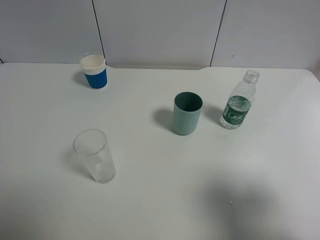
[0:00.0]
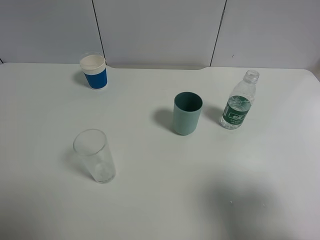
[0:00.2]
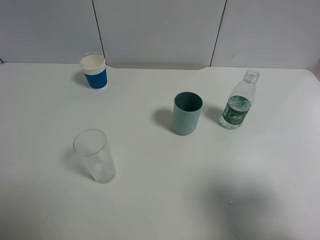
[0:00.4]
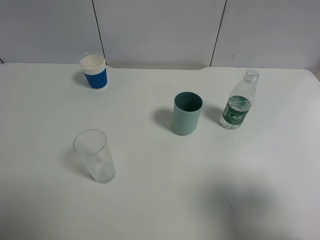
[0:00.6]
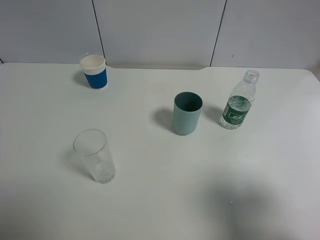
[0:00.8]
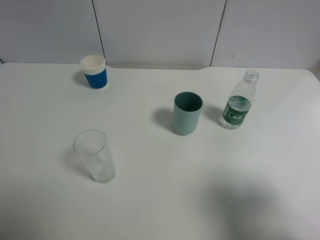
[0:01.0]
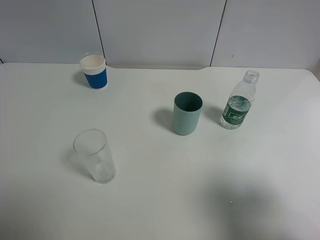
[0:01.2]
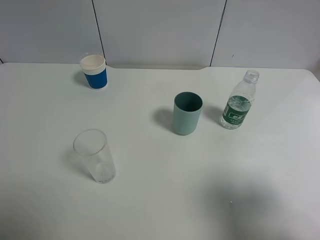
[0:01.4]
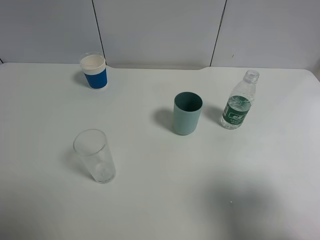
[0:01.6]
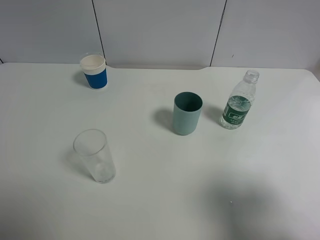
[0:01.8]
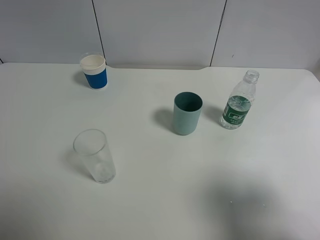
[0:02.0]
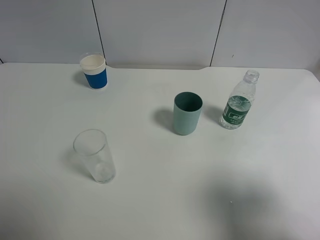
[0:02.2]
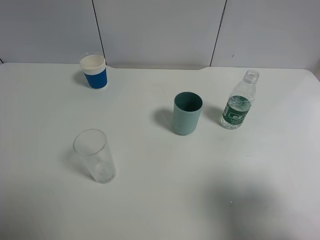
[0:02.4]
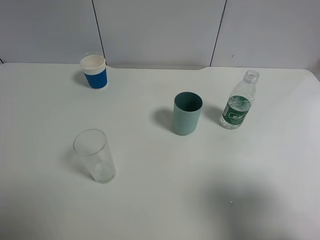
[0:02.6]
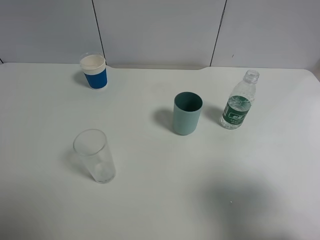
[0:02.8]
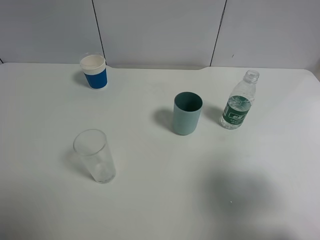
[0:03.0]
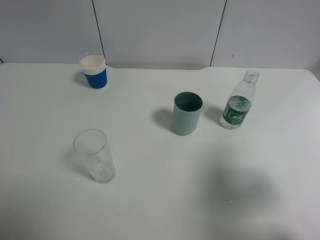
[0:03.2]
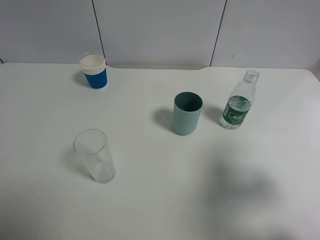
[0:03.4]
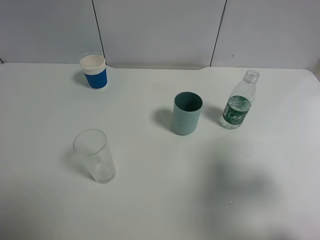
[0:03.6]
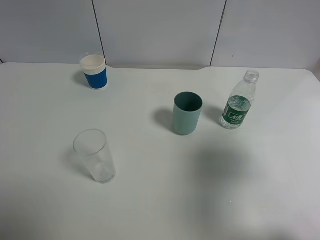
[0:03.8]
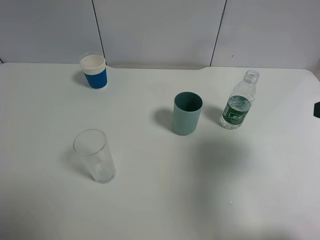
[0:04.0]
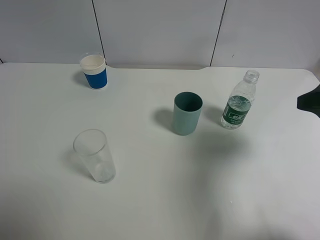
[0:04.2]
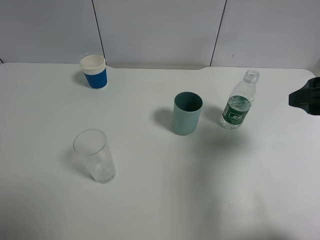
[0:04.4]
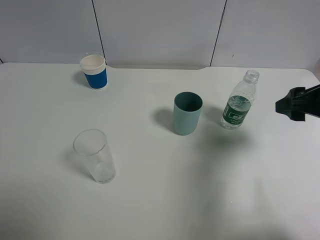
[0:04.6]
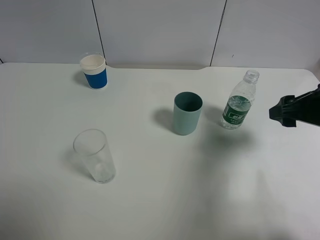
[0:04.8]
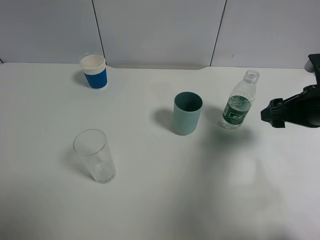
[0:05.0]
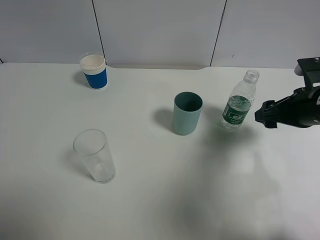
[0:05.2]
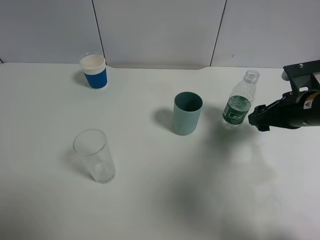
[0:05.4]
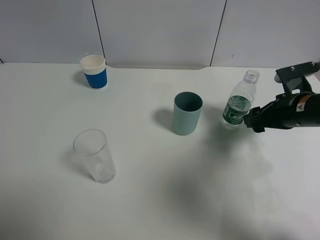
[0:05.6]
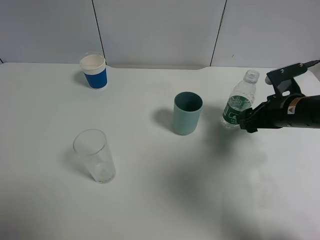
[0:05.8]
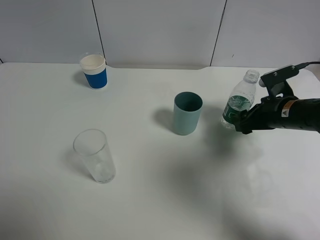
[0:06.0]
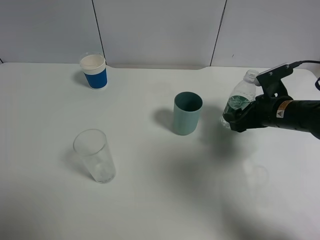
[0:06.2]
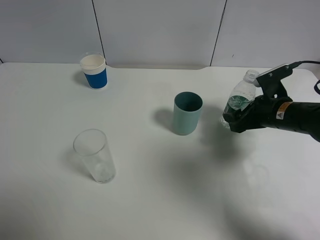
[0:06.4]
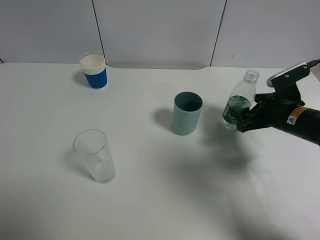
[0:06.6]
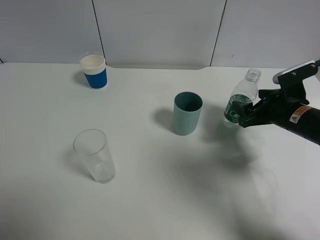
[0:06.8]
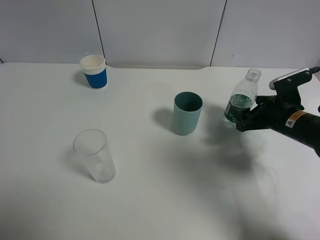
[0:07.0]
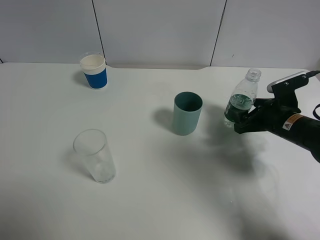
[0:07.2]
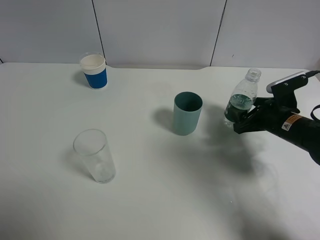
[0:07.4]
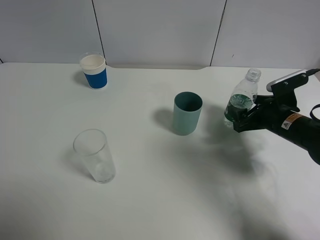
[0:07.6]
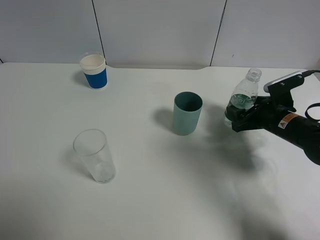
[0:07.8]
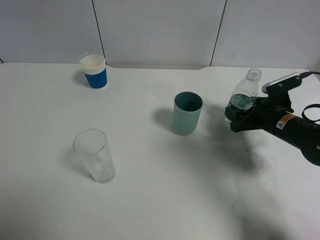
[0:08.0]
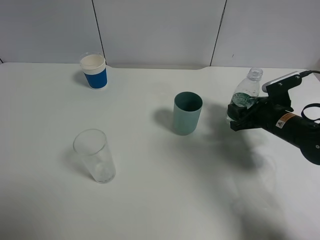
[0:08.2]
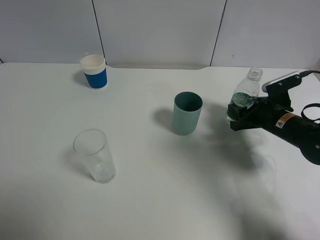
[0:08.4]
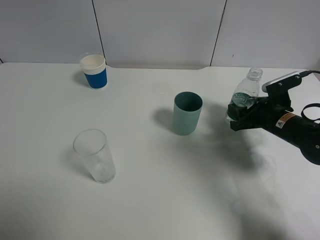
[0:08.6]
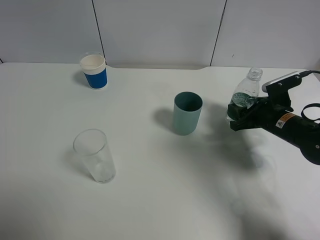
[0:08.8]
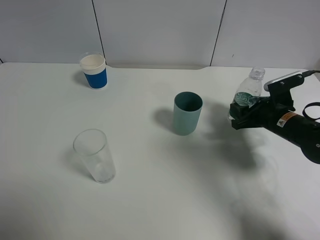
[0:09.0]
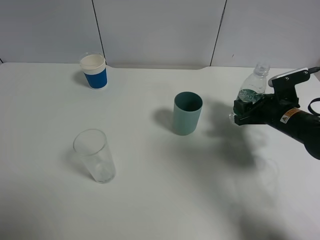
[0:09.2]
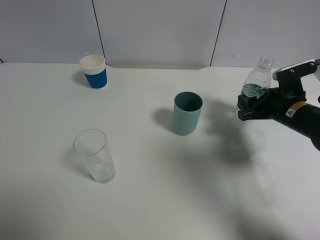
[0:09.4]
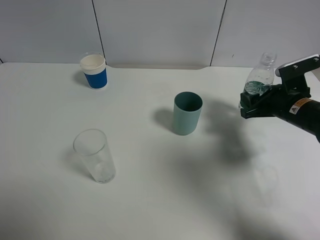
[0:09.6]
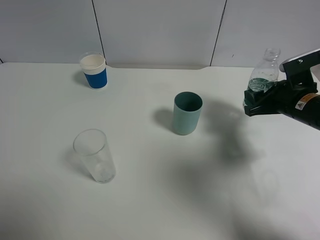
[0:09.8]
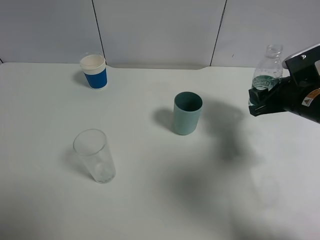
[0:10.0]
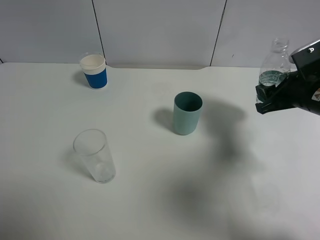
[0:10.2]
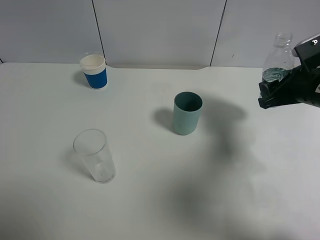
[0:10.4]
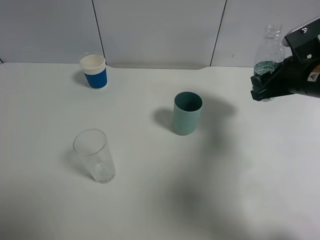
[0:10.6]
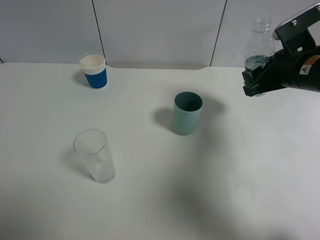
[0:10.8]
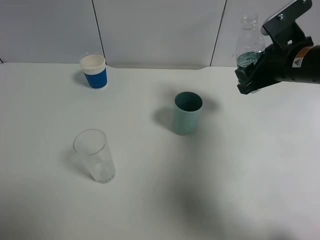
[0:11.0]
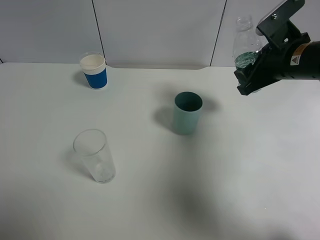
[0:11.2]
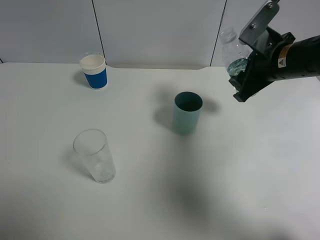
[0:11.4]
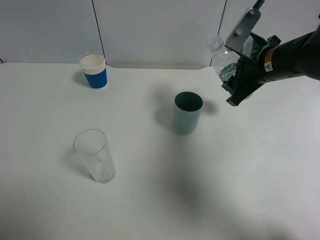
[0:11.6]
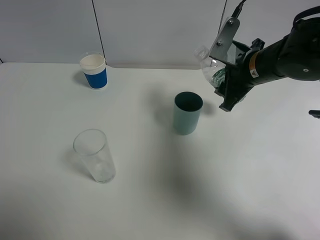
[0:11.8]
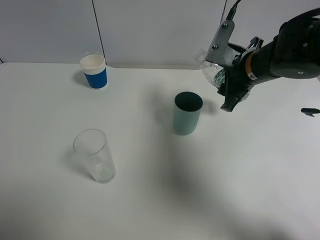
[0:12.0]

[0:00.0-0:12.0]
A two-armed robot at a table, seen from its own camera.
Task of the whole recording: use a gripper to hold the bottle of the drink and pour it into a random cup.
Step, 0:00.0 to 0:08.2: Grasp the mineral water bottle with the right gripper.
0:00.0 to 0:01.6: Both grippers stay put.
0:03.0 to 0:04.4: The right gripper shifts some 15 cm forward.
0:04.4 to 0:06.0: The right gripper travels downward and forward by about 15 cm.
0:07.6 to 0:09.0: The right gripper closes its fingers.
0:09.0 to 0:10.4: The right gripper heads upward, covering some 10 cm.
0:10.4 to 0:12.0: The right gripper travels to the left by some 10 cm.

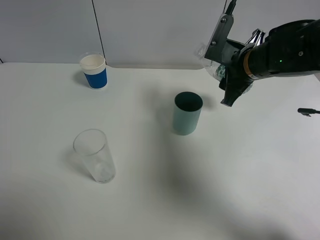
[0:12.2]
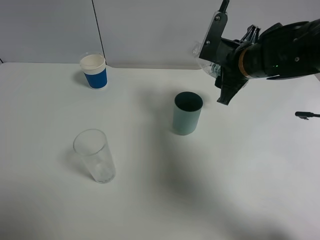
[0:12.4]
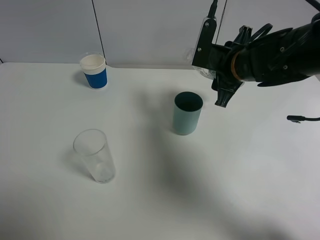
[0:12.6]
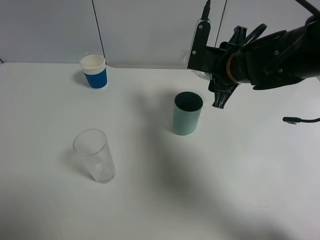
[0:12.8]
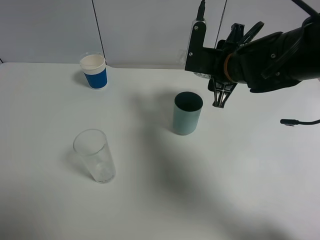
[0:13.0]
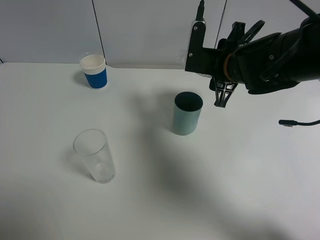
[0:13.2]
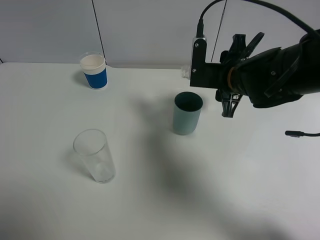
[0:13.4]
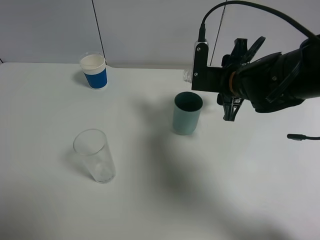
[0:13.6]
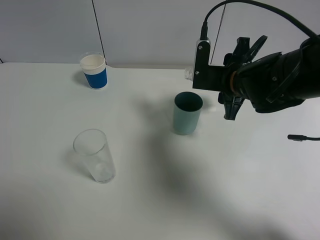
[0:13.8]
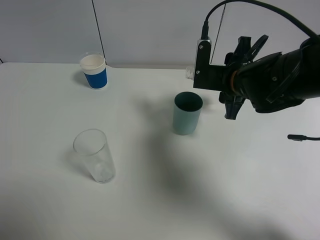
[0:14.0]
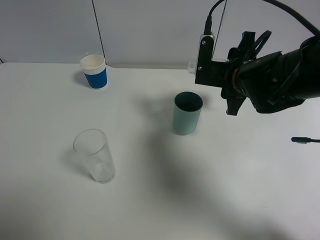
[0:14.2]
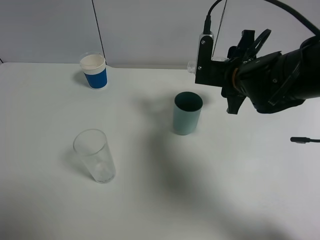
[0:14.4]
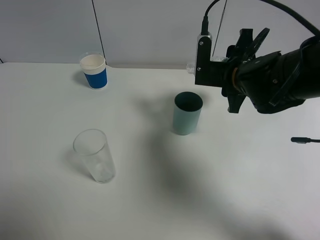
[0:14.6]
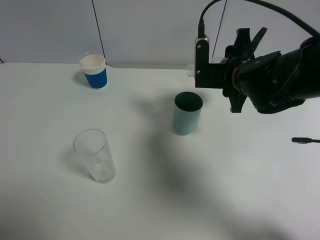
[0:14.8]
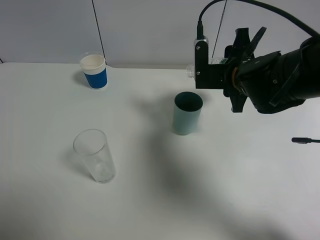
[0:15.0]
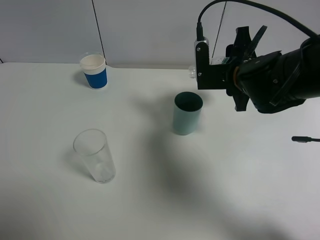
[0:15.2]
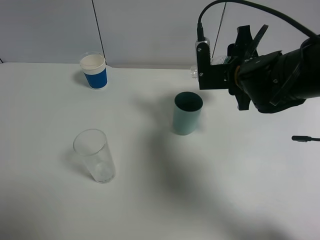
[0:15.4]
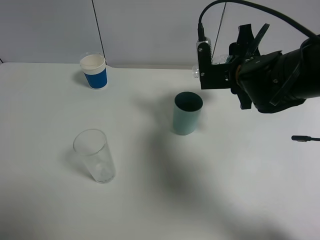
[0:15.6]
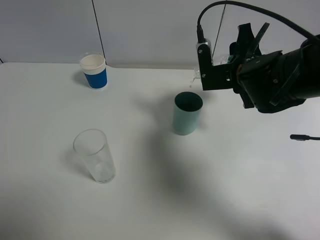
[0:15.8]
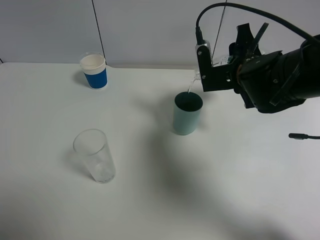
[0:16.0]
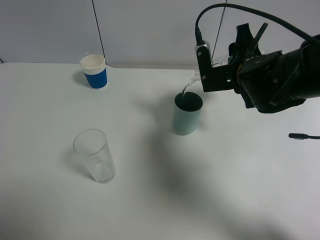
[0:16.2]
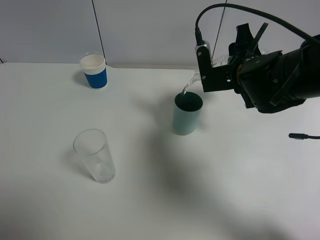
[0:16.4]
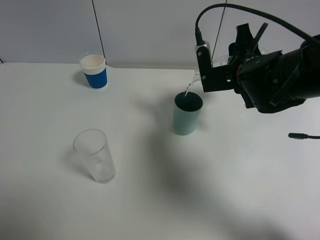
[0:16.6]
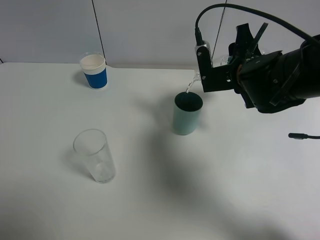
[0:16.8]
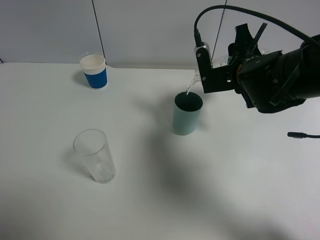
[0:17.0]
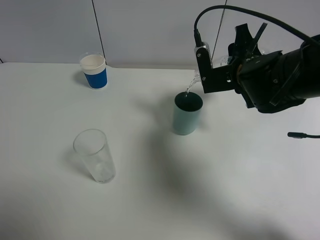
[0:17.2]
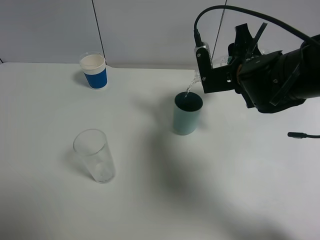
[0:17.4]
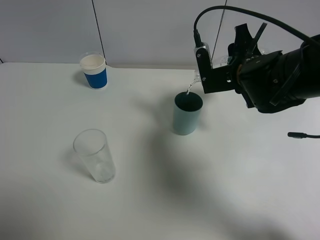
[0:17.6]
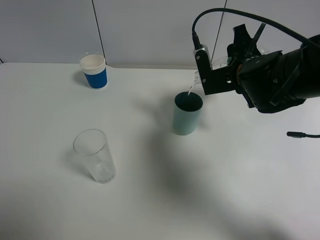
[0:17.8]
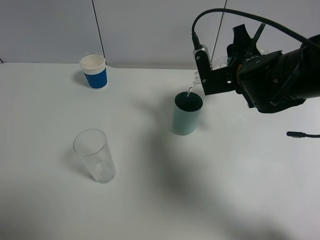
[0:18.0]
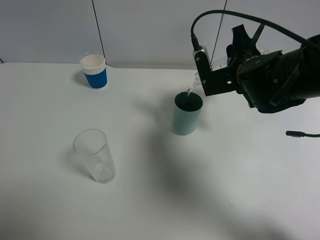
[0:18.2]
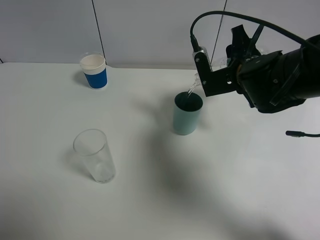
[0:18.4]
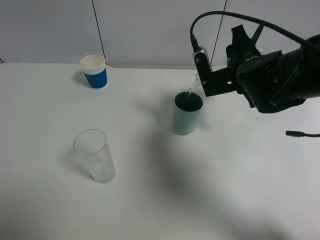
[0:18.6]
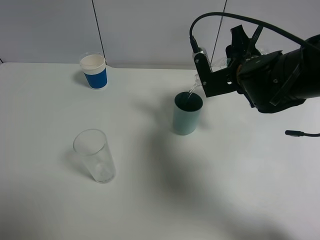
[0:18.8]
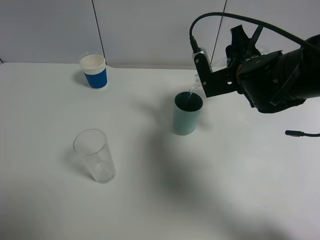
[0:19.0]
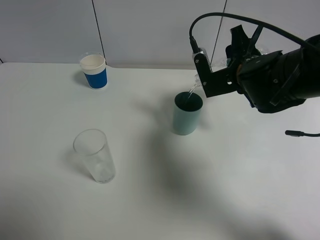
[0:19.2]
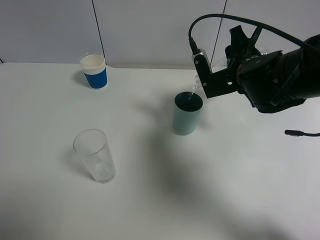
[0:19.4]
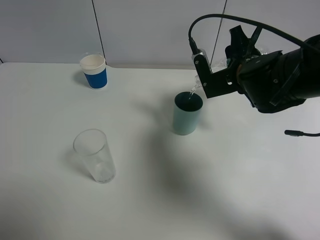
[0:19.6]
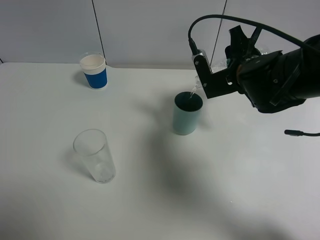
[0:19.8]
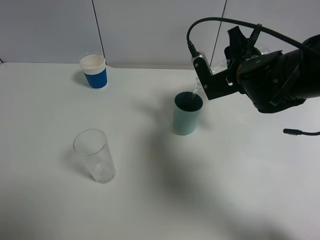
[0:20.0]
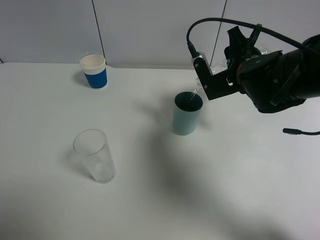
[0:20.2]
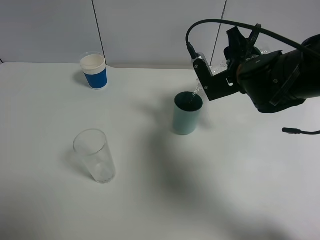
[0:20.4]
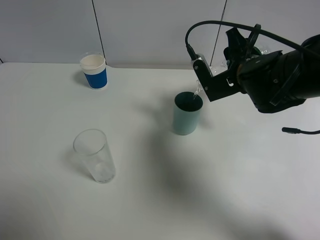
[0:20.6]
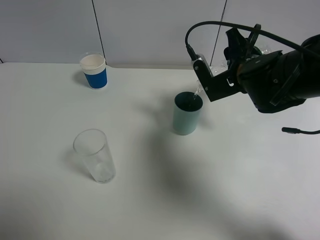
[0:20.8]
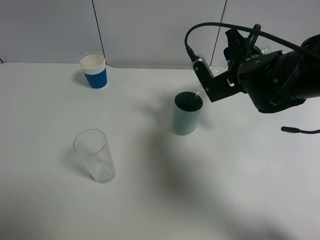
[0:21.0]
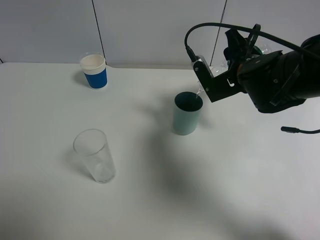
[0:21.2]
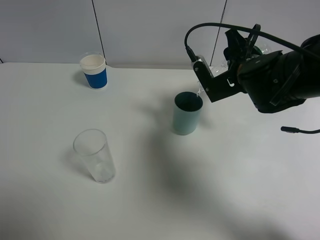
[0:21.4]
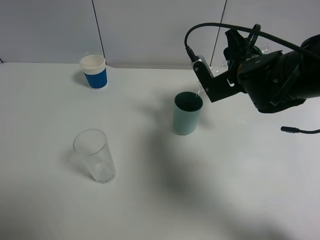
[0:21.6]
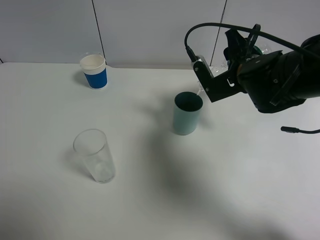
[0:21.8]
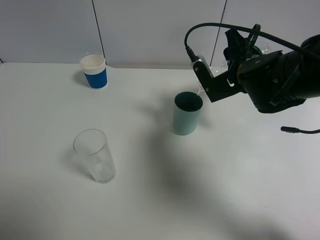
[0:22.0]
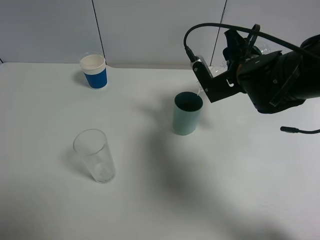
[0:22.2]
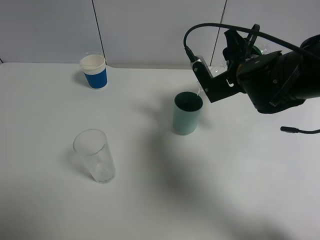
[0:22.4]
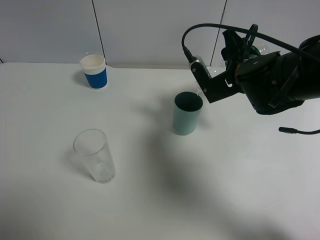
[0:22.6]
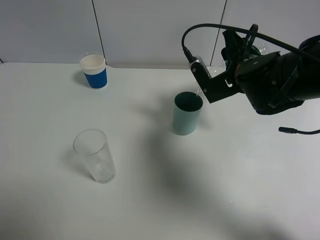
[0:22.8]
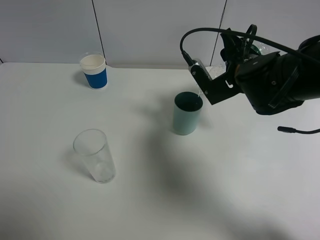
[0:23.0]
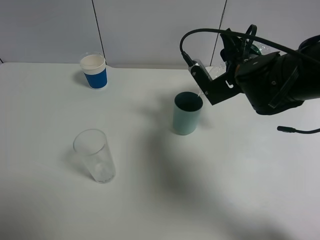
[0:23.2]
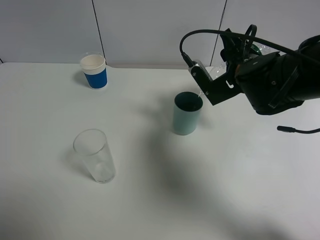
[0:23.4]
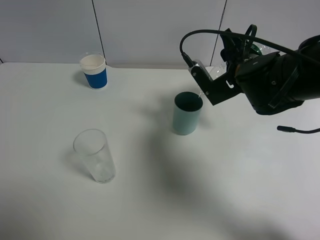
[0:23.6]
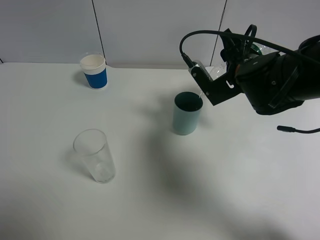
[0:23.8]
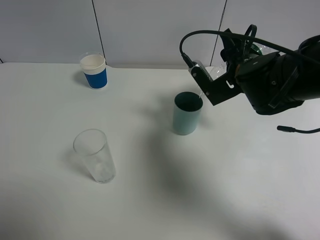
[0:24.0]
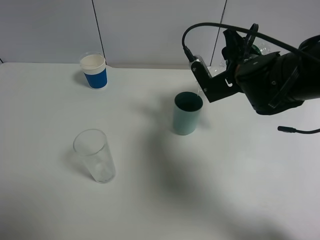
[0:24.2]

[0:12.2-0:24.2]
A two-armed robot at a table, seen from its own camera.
Task of the whole recording: use a gripper to hold the bottle of the drink and pour it into a random cup.
Step, 0:12.2 to 0:24.0: Pour the mineral water into the cyan cup with the right gripper.
0:13.8 to 0:15.2: The grippers make only small movements.
0:15.2 to 0:18.2: The grippers move only a little.
0:18.2 to 0:19.8: Both grippers stay put.
0:19.8 to 0:21.2: The grippers move only a little.
0:21.2 to 0:22.6: Both grippers stay about where they are.
0:22.6 to 0:24.2: The grippers stay close to where they were, moving slightly.
